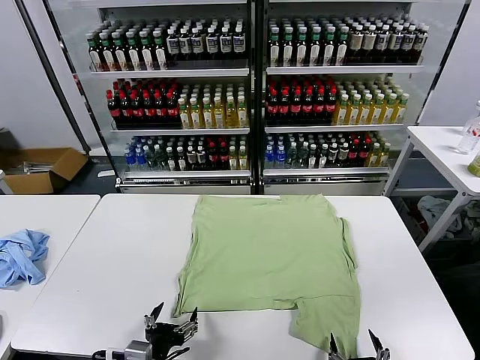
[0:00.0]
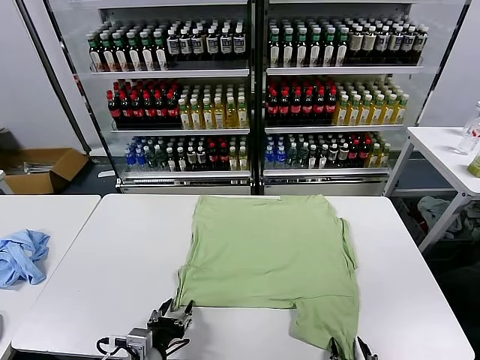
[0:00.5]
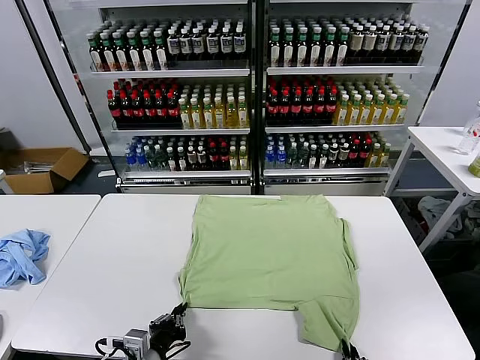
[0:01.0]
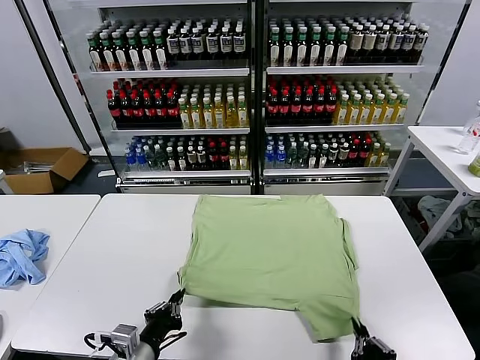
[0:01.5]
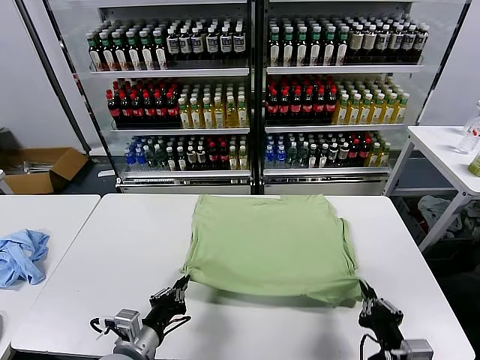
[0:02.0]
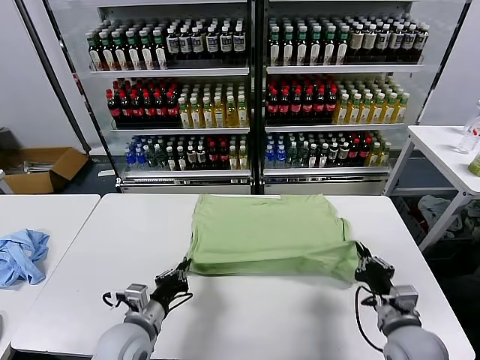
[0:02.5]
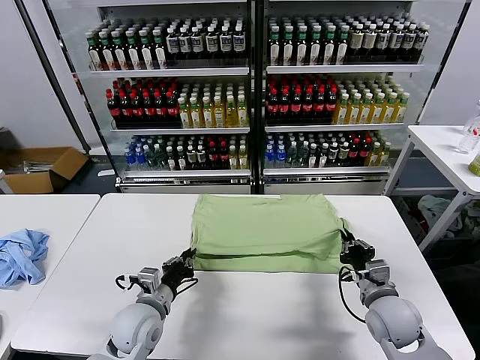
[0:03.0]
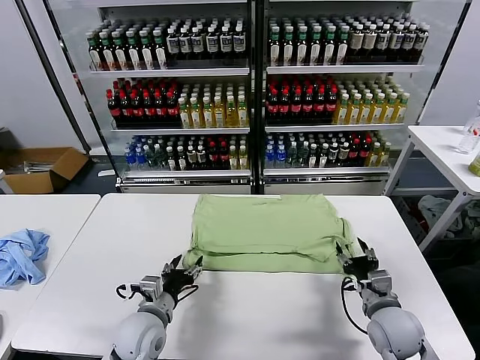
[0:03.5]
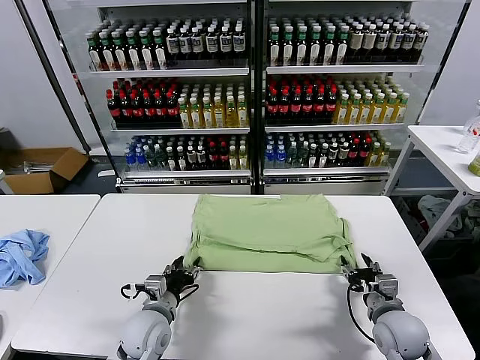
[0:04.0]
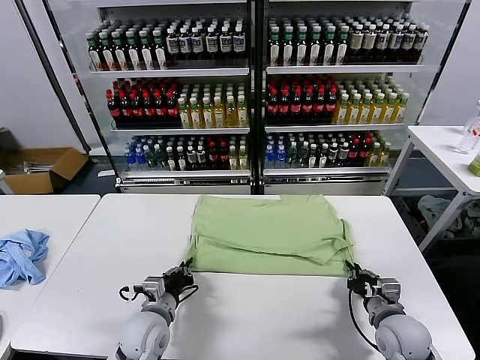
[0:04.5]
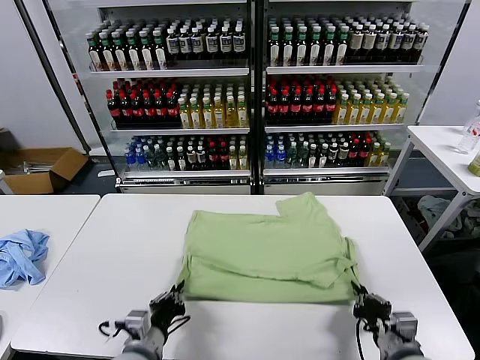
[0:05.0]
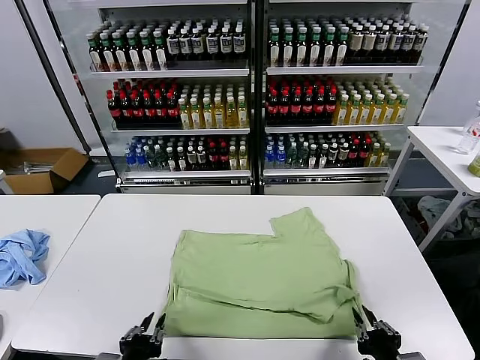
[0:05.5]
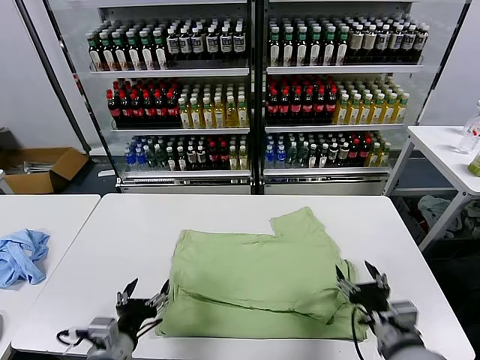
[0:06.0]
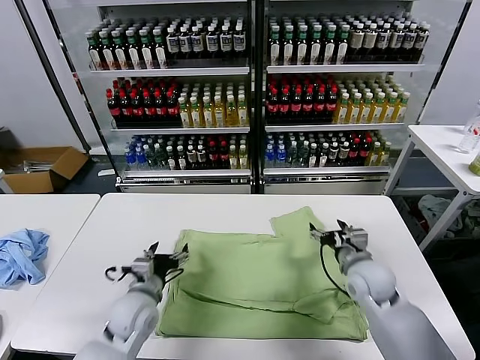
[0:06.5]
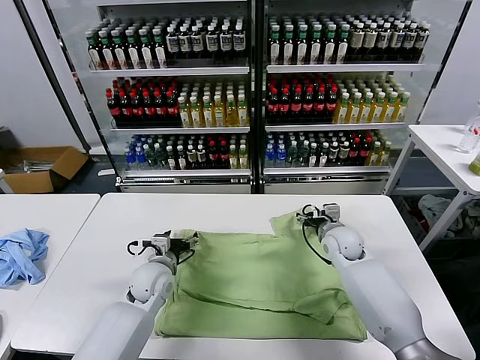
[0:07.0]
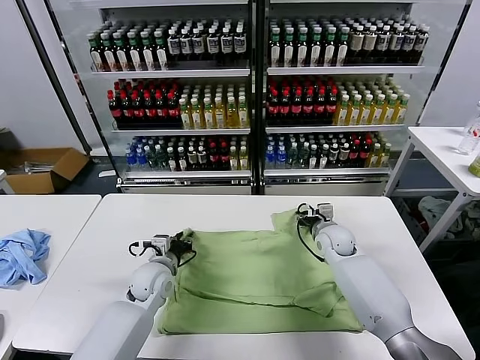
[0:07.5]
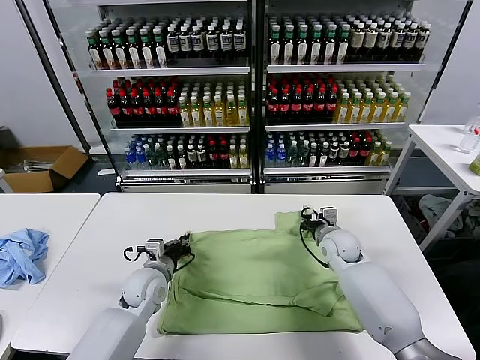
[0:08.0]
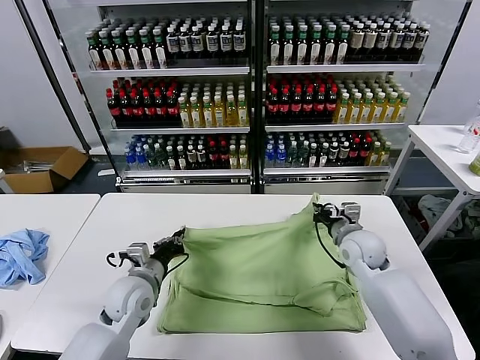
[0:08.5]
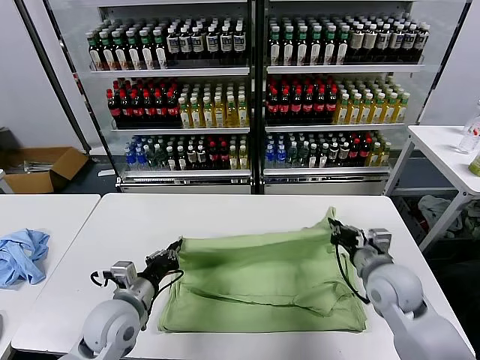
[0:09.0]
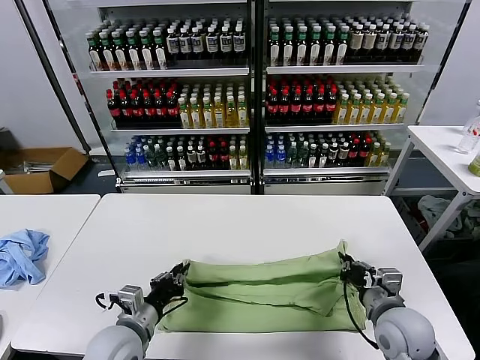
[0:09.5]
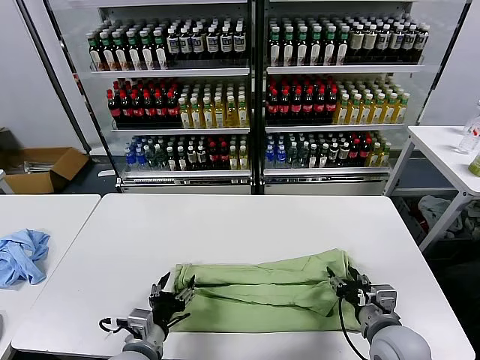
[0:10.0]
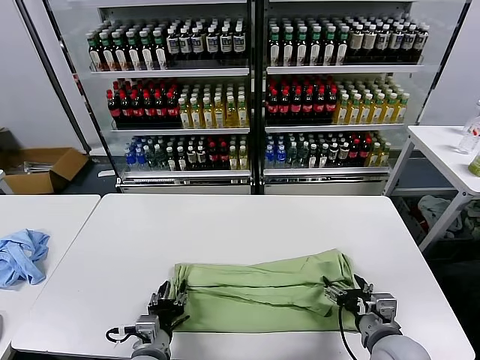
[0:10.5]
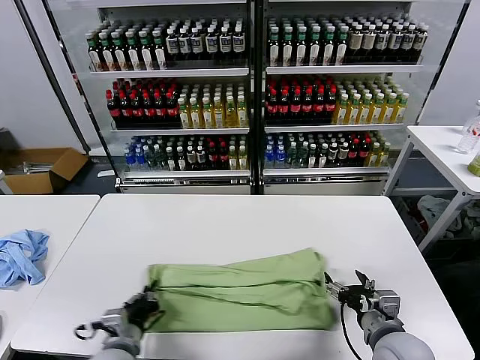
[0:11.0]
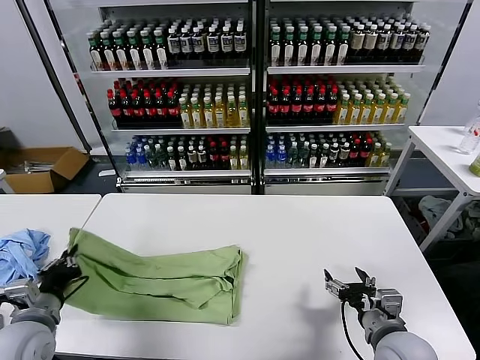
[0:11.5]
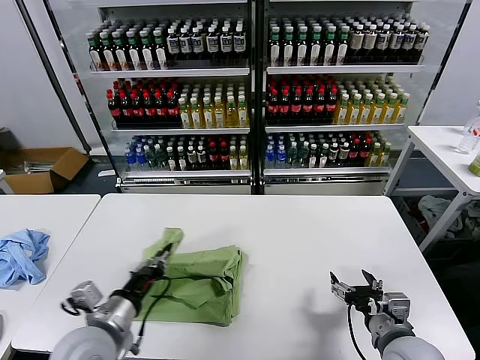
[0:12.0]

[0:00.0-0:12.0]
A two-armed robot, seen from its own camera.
Task of the whole recording: fold and organize the clothes.
Step, 0:00.0 to 0:01.0: use both grippers simultaneously to clamp the lower edge of the clothing fabric.
Step, 0:01.5 to 0:03.0: use both grippers to drag the lower edge of the fabric forward and fold it over the upper edge.
Step, 0:03.5 to 0:05.0: Drag the clothes downward with both gripper.
Step, 0:06.0 to 0:07.5: use both grippers simultaneously to clamp the upper edge of the clothing fabric.
Step, 0:08.0 to 0:09.5: use both grippers to drag the upper edge of the fabric backward and fold it over the lower edge.
Step, 0:10.0 to 0:10.5: use the left gripper to clamp the left edge of the fabric.
0:02.0 to 0:04.0: Both grippers move forward and downward, about 10 cm. The right gripper opens, while the left gripper opens.
0:04.0 to 0:06.0: The right gripper is displaced upward by approximately 5 cm, goes backward and returns, some 15 cm each way, and opens up. The left gripper shifts approximately 15 cm backward and upward, and closes, then opens again.
0:06.0 to 0:08.0: Both grippers move forward, about 25 cm. The left gripper closes up, while the right gripper closes.
0:08.0 to 0:10.0: The grippers both shift backward by approximately 20 cm. The right gripper opens its fingers. The left gripper opens up.
0:10.0 to 0:12.0: The left gripper shifts roughly 10 cm upward, moves roughly 15 cm to the left and comes back, and closes up.

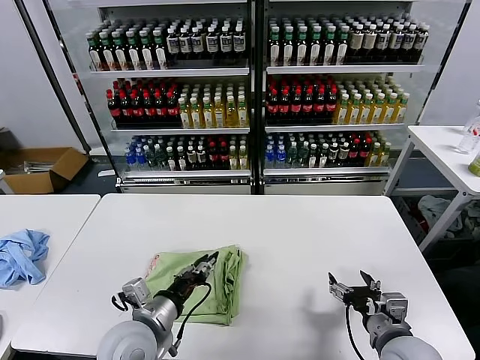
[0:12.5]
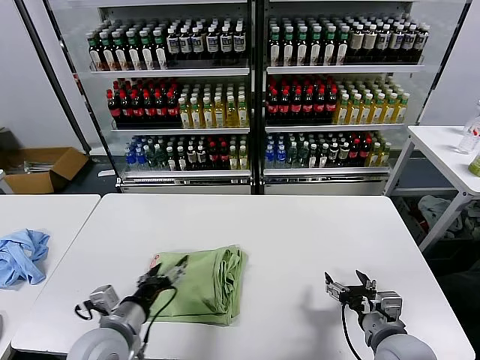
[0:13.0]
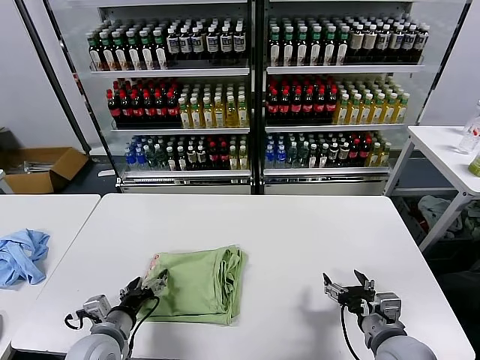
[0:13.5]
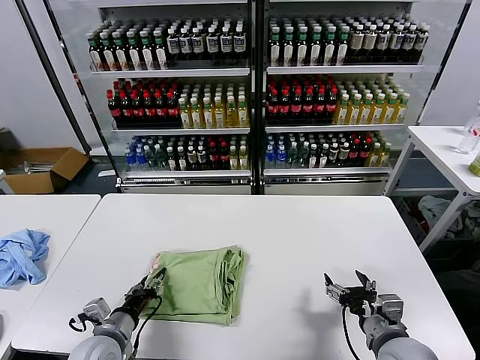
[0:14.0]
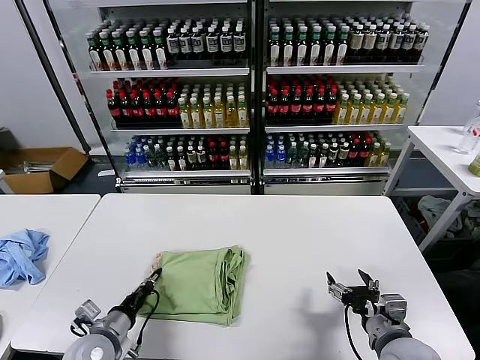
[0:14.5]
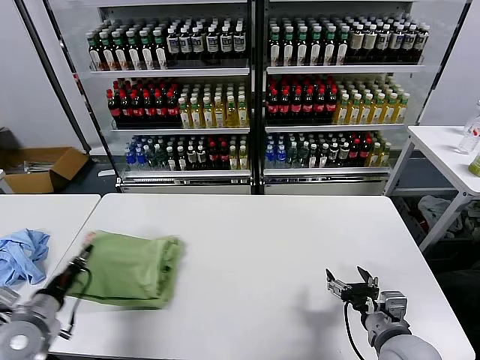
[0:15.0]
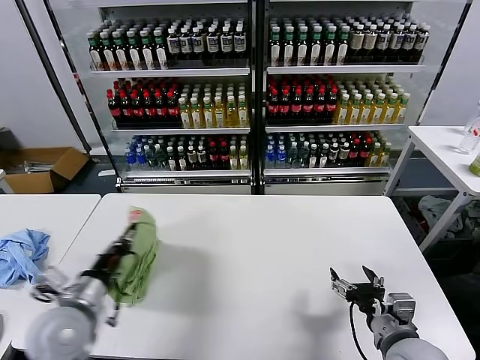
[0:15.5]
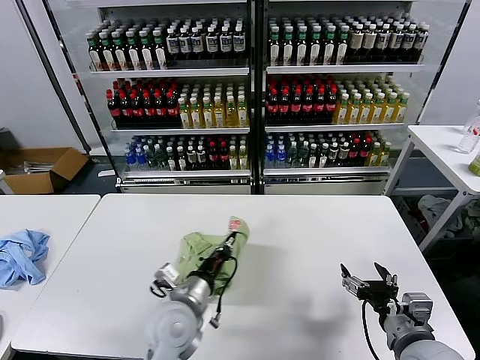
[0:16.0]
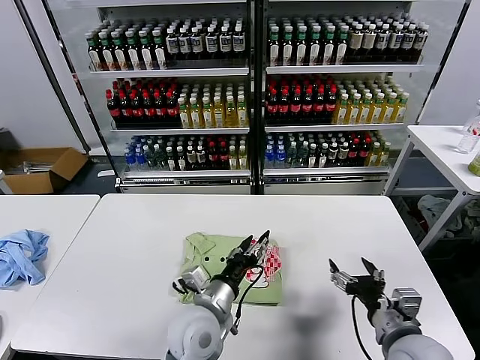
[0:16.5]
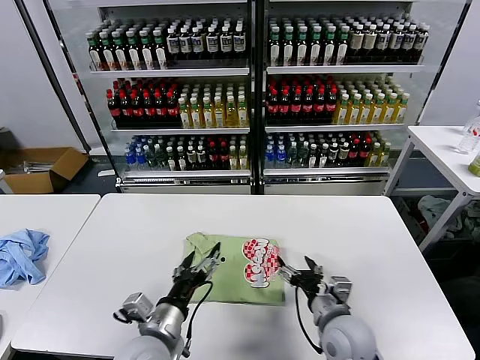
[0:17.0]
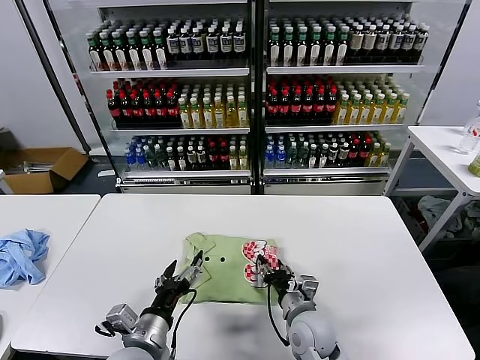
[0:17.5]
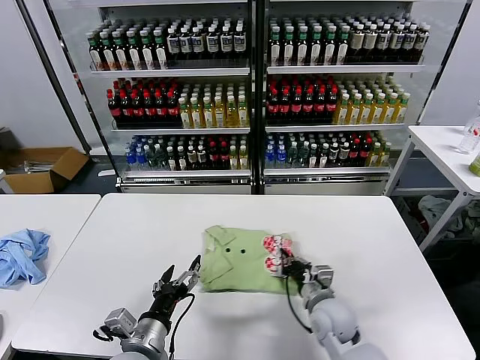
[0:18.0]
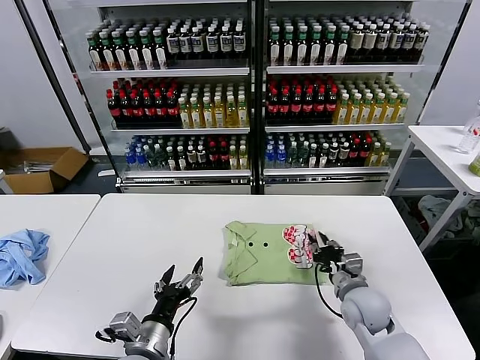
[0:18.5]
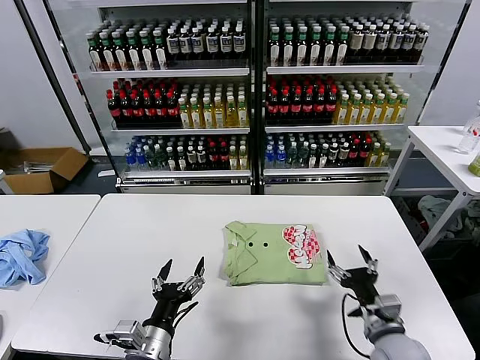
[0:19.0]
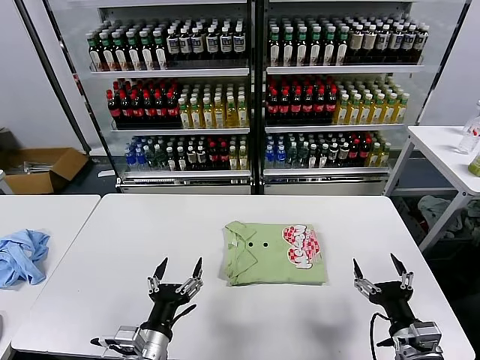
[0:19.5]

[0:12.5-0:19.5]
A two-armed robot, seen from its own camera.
Task of the whole recording: fold and organize the clothes.
Step, 0:13.0 to 0:16.0: Flip the folded clothes over with left gripper.
Step, 0:16.5 to 0:18.5: Drag the clothes to the center of the table.
0:12.5 to 0:14.5: The left gripper moves to the left and downward, some 15 cm, and closes up.
0:14.5 to 0:16.0: The left gripper moves to the right and upward, approximately 20 cm.
0:16.0 to 0:17.5: The left gripper goes some 10 cm backward and to the left, and opens up; the right gripper shifts roughly 20 cm to the left, downward and forward, and closes up.
0:17.5 to 0:19.5: The right gripper moves to the right and backward, roughly 20 cm, and opens.

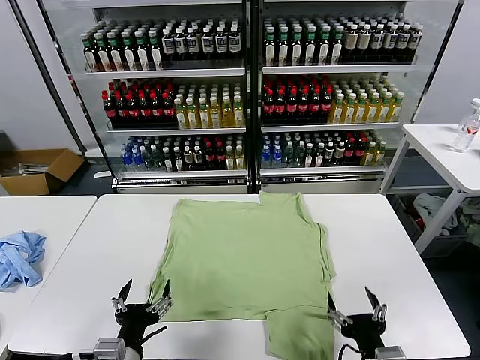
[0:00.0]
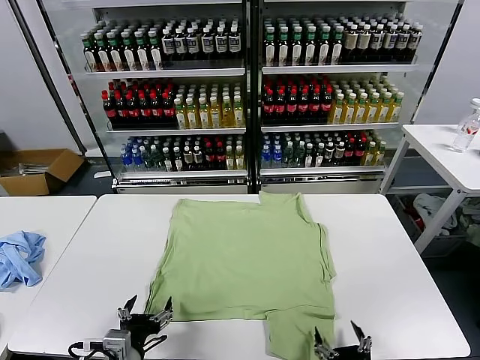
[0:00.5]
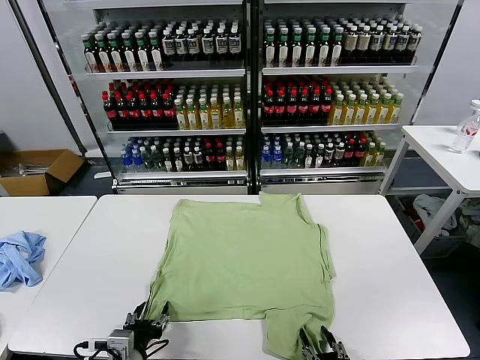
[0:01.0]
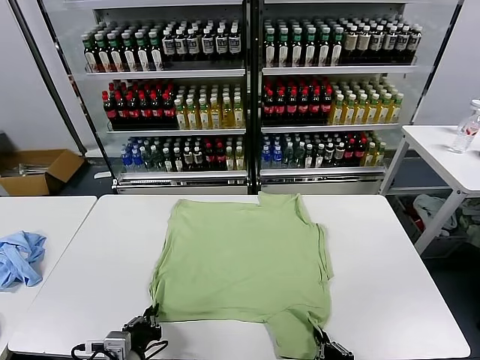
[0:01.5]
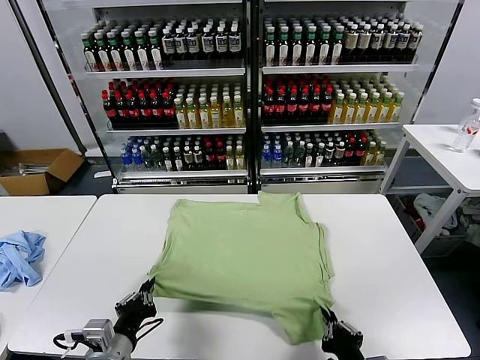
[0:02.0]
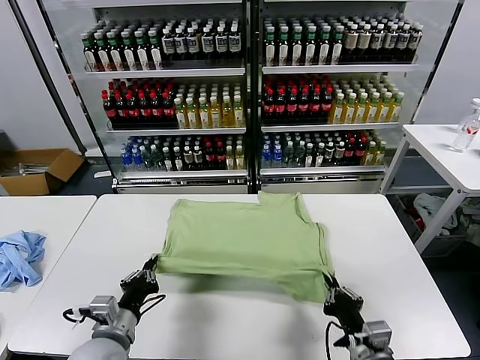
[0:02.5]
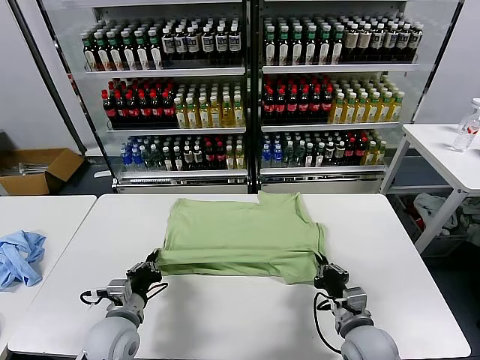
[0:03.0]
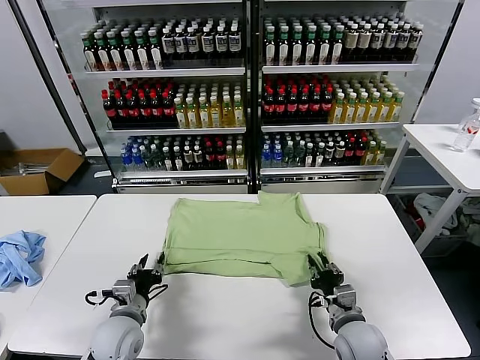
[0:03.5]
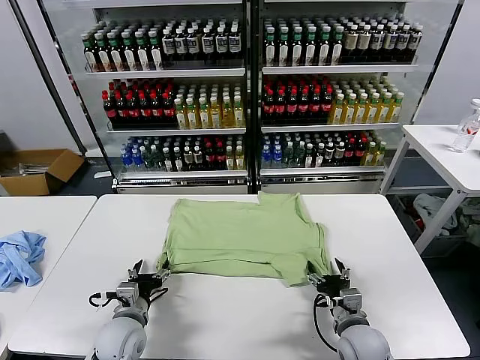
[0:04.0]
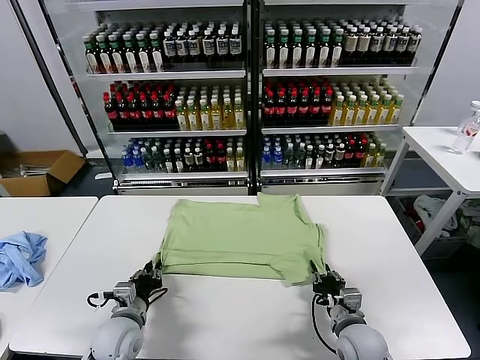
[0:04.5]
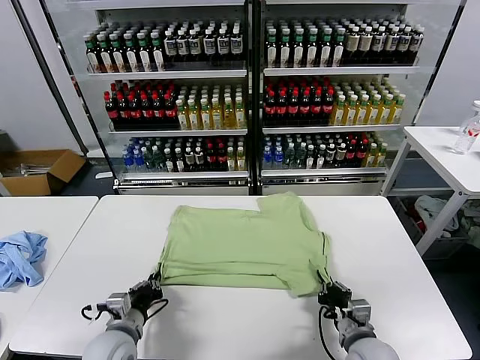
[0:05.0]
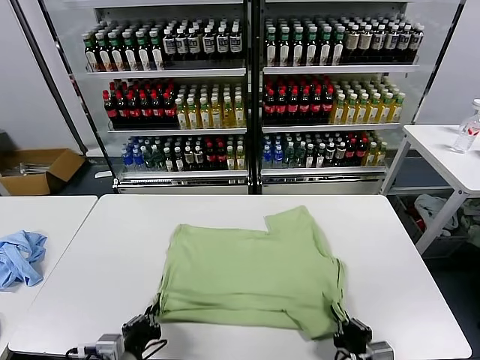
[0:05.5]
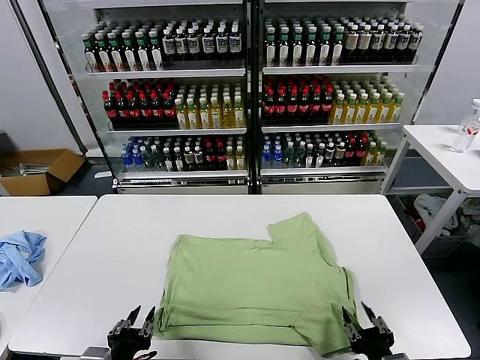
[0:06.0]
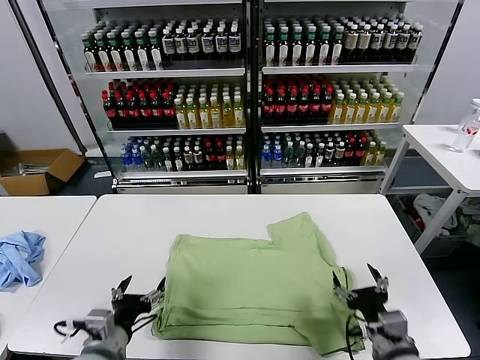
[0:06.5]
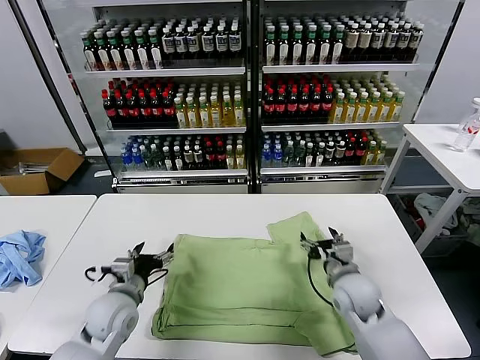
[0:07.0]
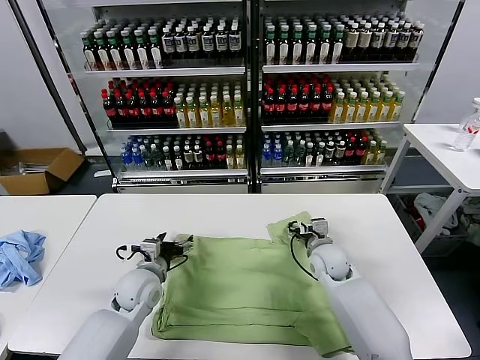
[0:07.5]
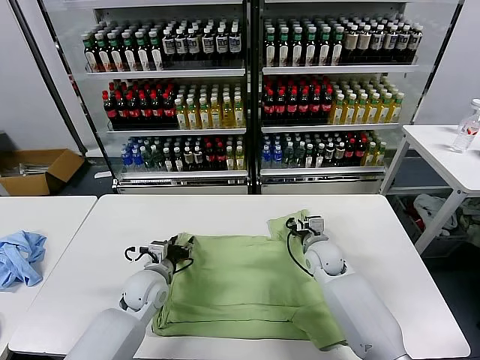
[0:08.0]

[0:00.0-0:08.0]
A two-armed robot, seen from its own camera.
Task of the whole recording: fold and organize the clothes.
Step, 0:00.0 to 0:01.5: use both grippers simultaneously to clamp the lower edge of the clothing fabric.
Step, 0:02.0 to 0:03.5: use both grippers to drag the lower edge of the fabric forward and fold it over the upper edge.
Step, 0:04.0 to 0:05.5: Drag the clothes downward with both gripper.
0:02.0 to 0:04.0: The grippers both shift forward and downward by about 15 cm. The left gripper opens up, while the right gripper opens its fingers.
0:04.0 to 0:06.0: The two grippers go roughly 20 cm backward and upward. The right gripper closes and opens again. The left gripper closes up.
0:06.0 to 0:08.0: The grippers both shift forward by approximately 30 cm. The left gripper opens and closes again.
